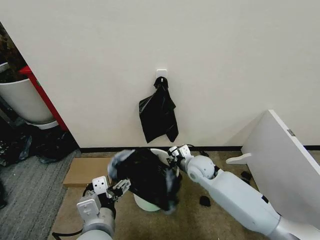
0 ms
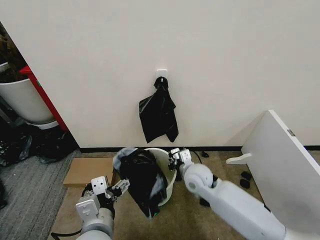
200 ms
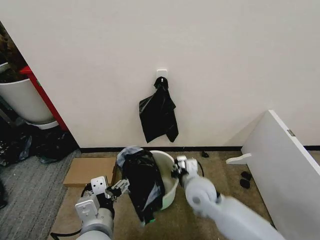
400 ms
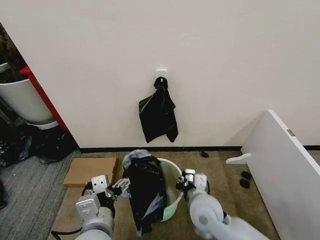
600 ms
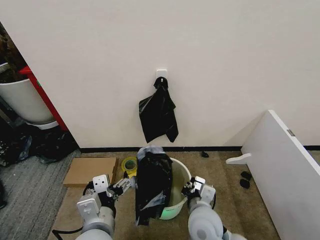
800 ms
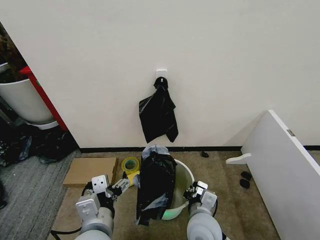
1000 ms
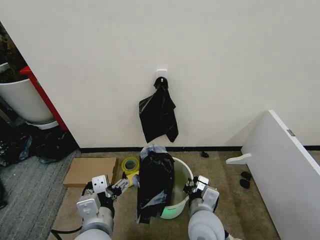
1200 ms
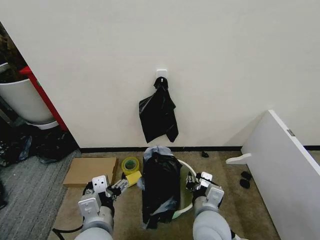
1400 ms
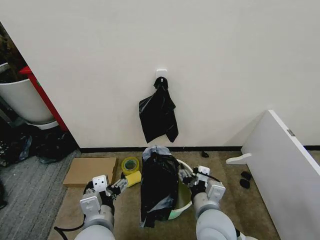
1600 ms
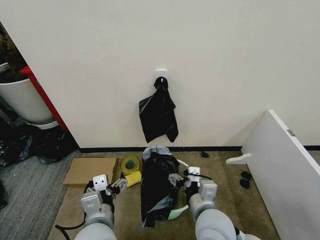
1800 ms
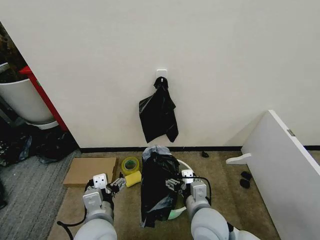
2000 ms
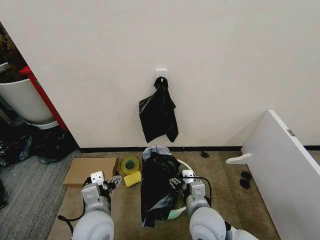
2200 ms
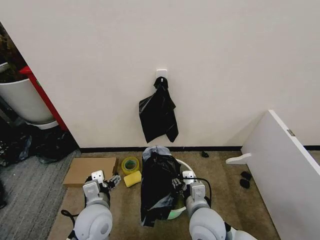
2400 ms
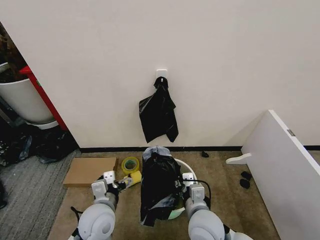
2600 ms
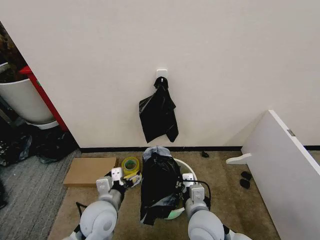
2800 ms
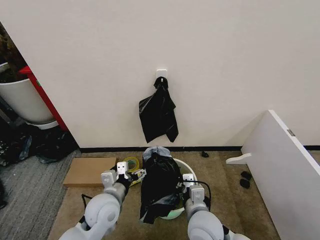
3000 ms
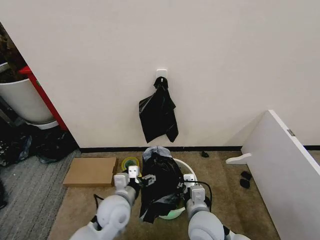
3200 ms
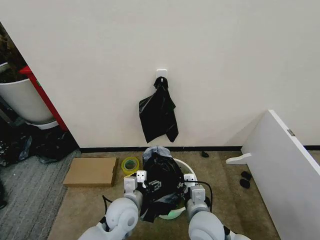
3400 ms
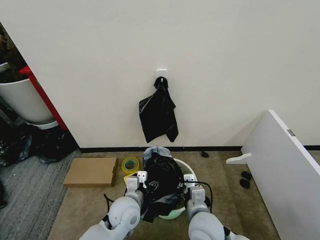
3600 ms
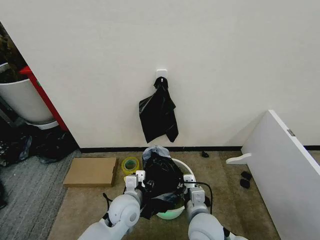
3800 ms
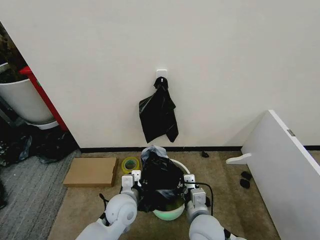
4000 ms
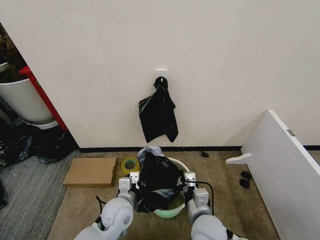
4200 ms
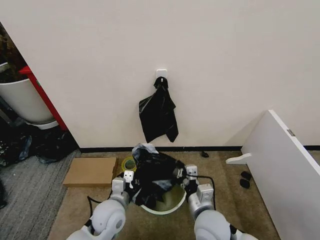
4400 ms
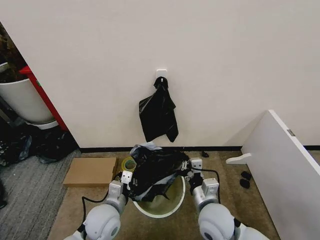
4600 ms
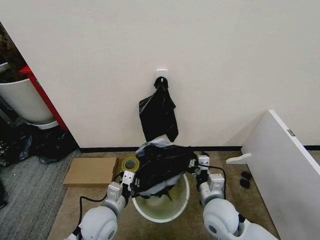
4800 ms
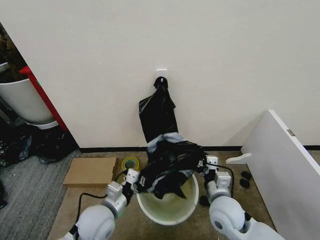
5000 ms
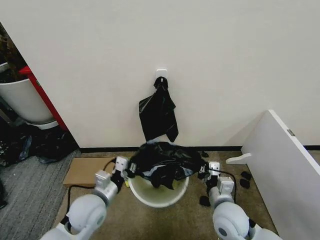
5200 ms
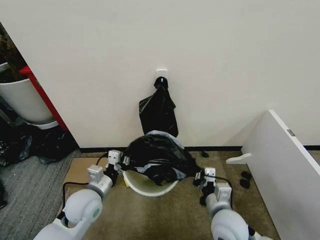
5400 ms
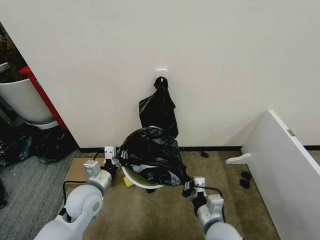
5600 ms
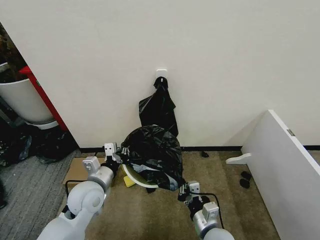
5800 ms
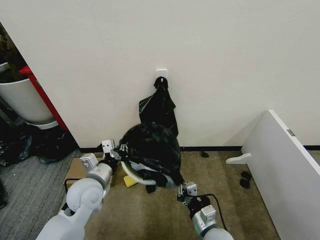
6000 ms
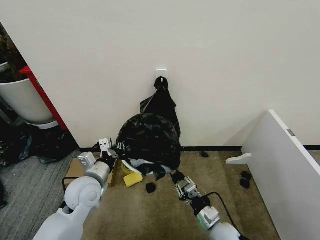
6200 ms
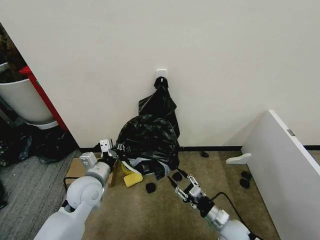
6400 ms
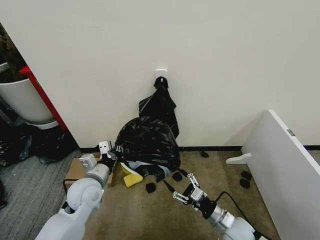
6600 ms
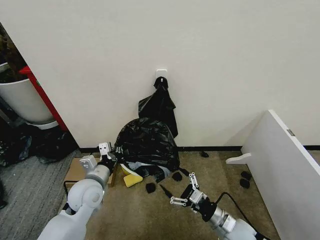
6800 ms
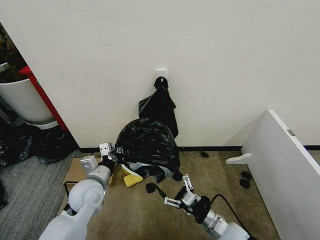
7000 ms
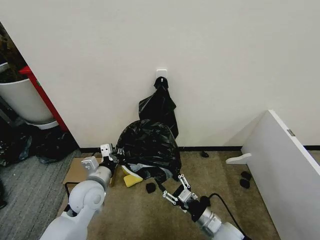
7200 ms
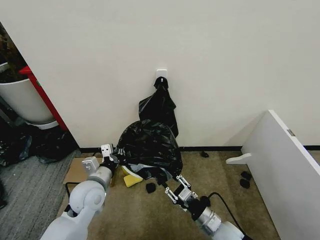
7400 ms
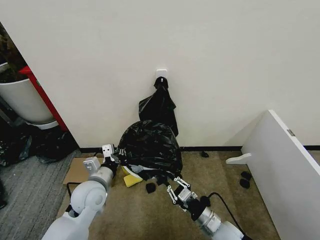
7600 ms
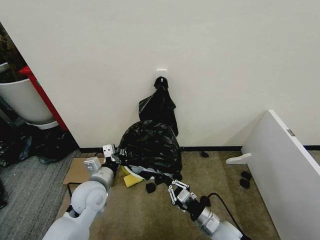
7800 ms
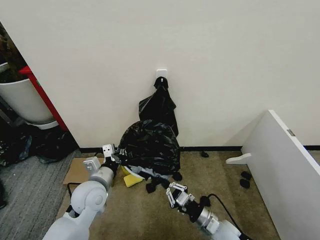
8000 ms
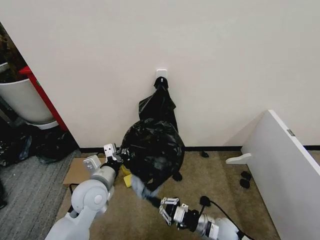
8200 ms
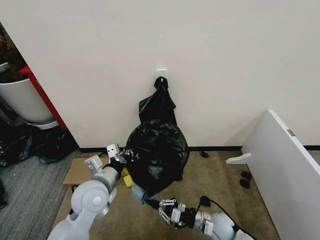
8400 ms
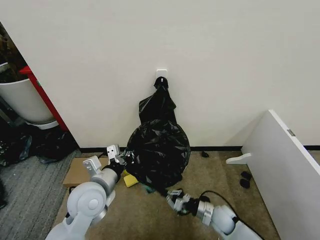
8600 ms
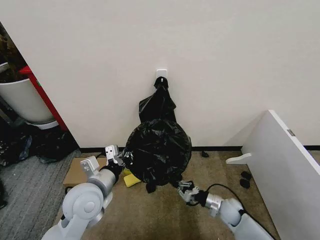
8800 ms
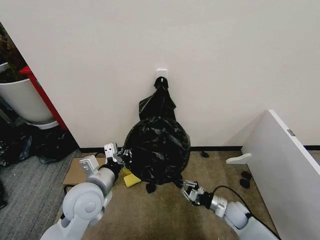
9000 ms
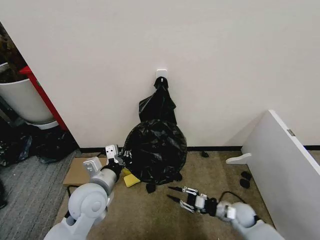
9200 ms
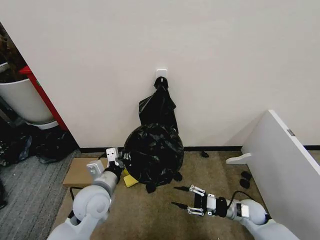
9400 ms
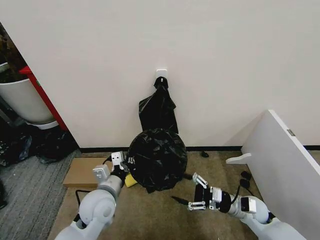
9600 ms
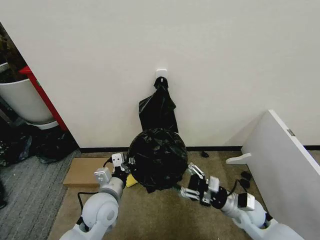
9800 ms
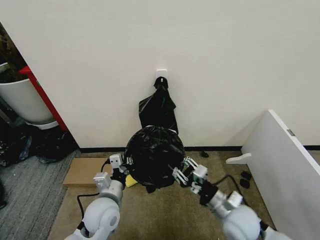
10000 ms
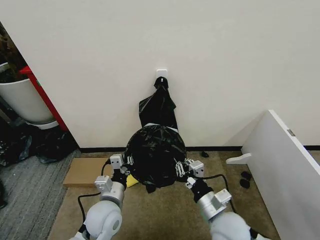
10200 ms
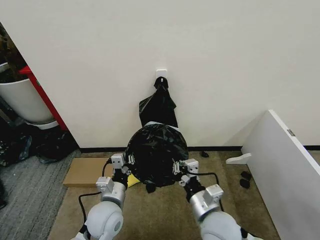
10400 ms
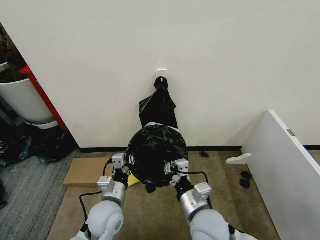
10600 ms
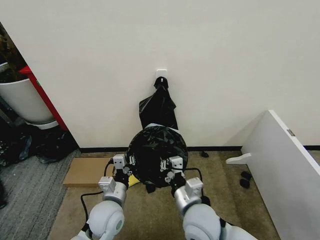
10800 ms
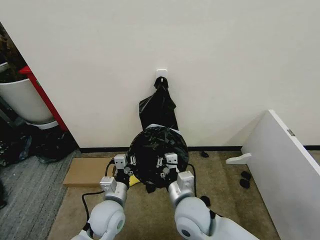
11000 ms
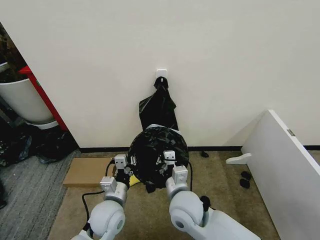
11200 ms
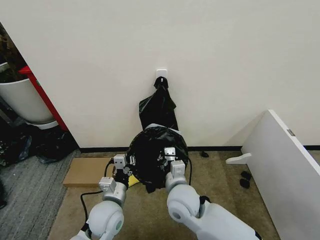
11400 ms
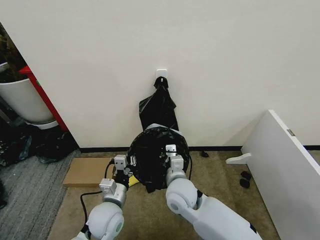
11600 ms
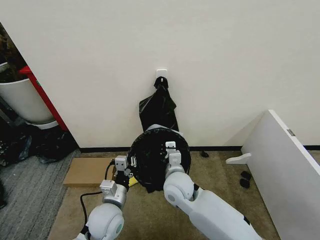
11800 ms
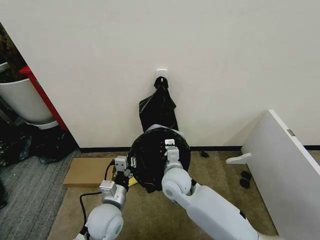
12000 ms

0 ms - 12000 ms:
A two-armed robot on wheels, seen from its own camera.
Task of the whole recording: Place the garbage bag over the trash bin.
0 ms - 1600 ms: The right gripper moves backward, approximately 20 cm, and opens up.
1600 ms - 3000 ms: The right gripper shifts by roughly 5 cm, and closes; the left gripper heads forward and downward, covering about 15 cm.
3000 ms - 4400 ms: The left gripper closes.
4400 ms - 6000 ms: The right gripper shifts roughly 10 cm downward, while the left gripper moves upward and to the left, roughly 10 cm.
6000 ms - 7600 ms: The right gripper opens and closes again.
7600 ms - 9000 ms: The left gripper travels upward by roughly 5 cm. The right gripper is displaced to the right, forward and downward by approximately 15 cm.
9000 ms - 10400 ms: The left gripper heads downward, covering approximately 10 cm. The right gripper goes roughly 30 cm upward, to the left and backward, and opens, then closes once more.
10400 ms - 12000 ms: The right gripper goes about 15 cm forward and to the left.

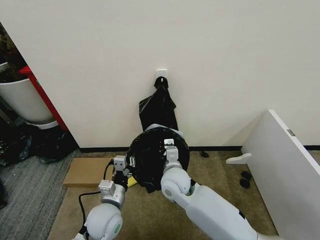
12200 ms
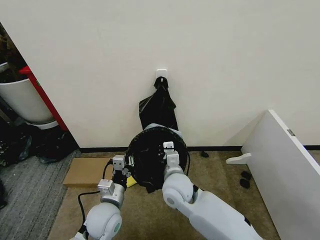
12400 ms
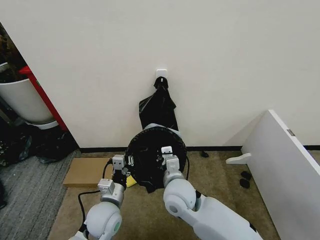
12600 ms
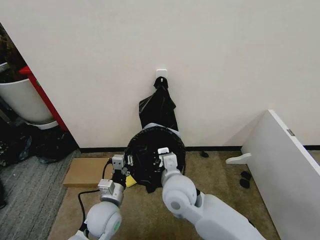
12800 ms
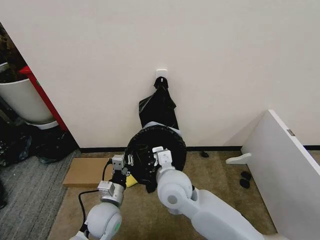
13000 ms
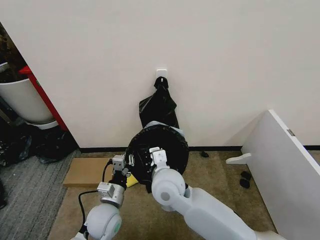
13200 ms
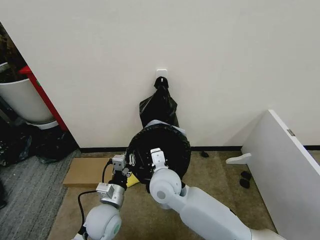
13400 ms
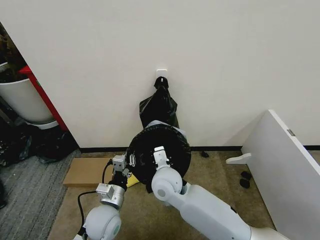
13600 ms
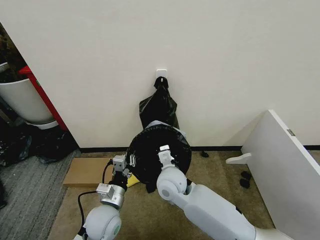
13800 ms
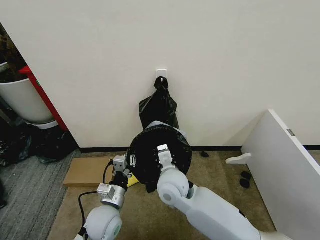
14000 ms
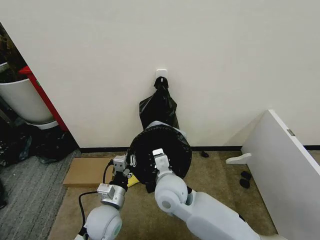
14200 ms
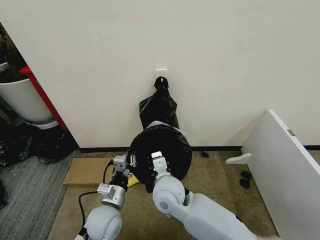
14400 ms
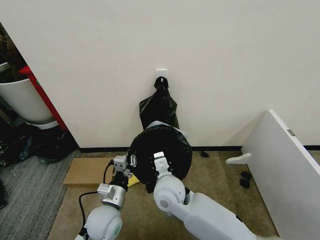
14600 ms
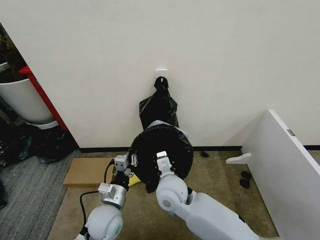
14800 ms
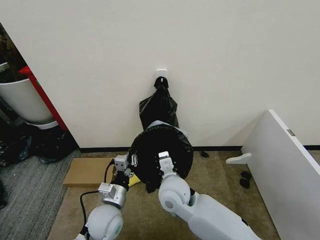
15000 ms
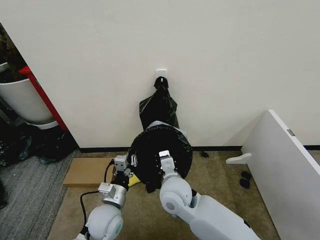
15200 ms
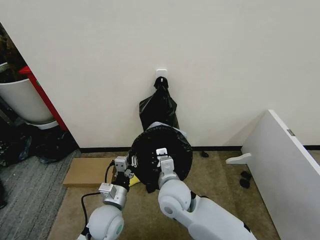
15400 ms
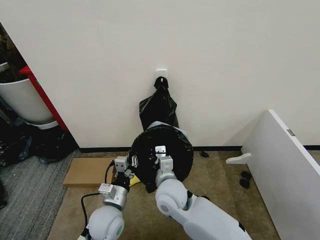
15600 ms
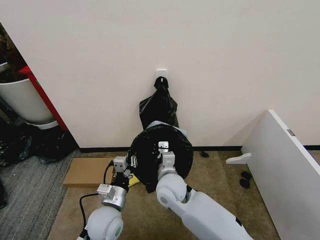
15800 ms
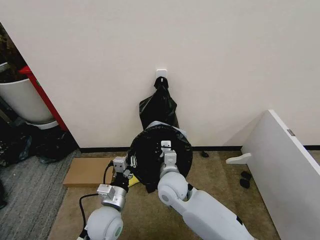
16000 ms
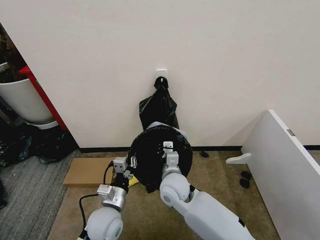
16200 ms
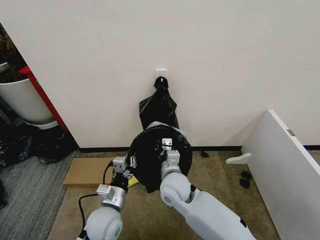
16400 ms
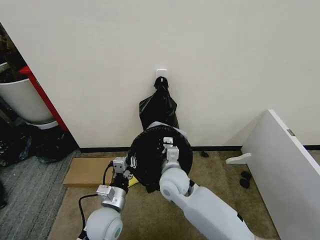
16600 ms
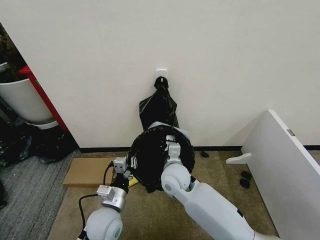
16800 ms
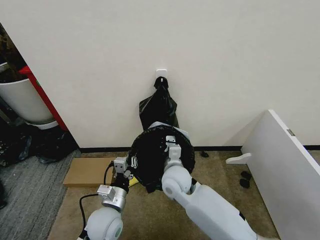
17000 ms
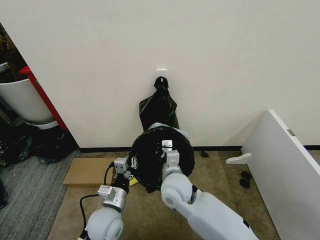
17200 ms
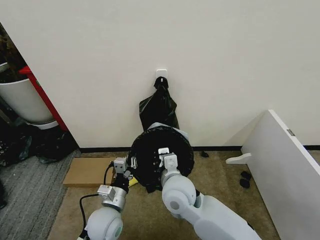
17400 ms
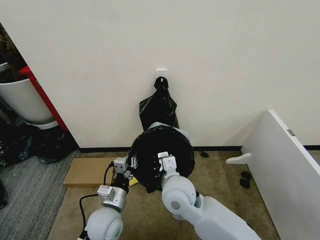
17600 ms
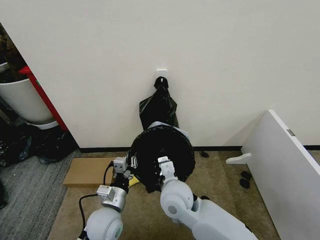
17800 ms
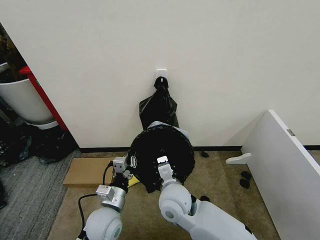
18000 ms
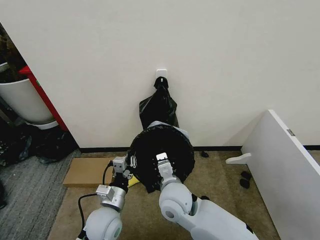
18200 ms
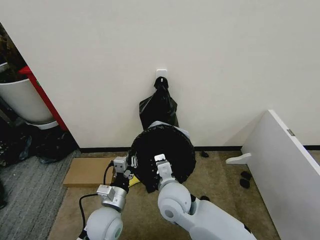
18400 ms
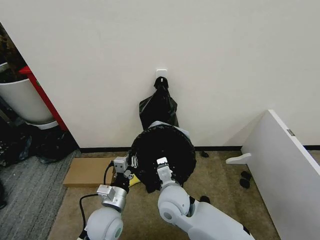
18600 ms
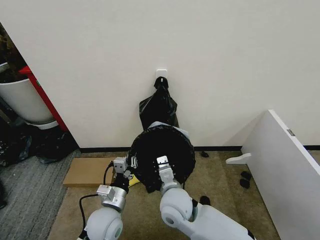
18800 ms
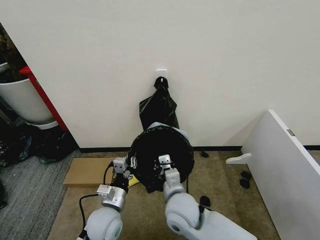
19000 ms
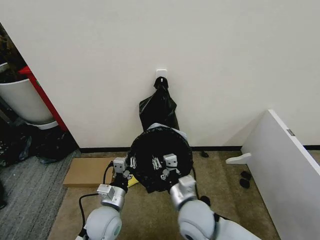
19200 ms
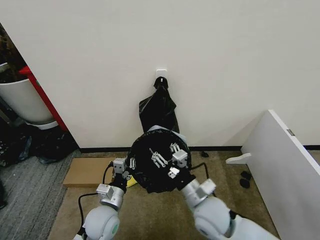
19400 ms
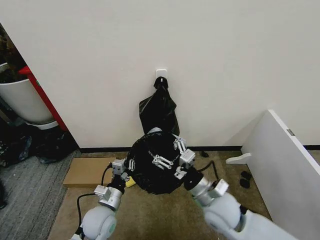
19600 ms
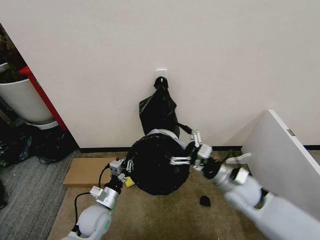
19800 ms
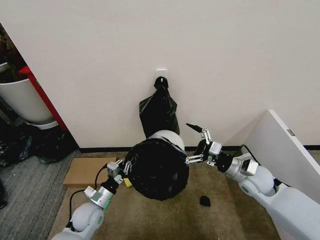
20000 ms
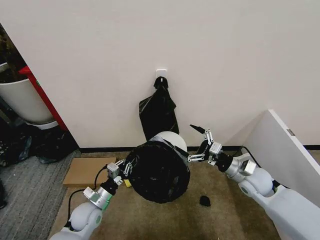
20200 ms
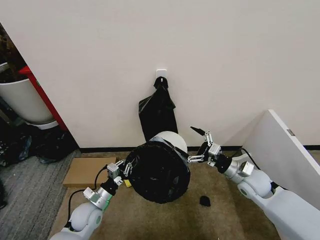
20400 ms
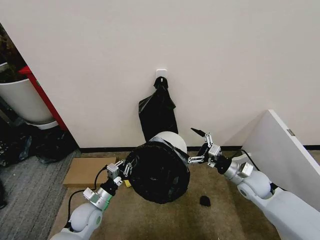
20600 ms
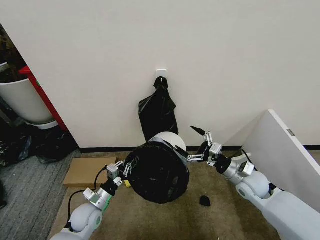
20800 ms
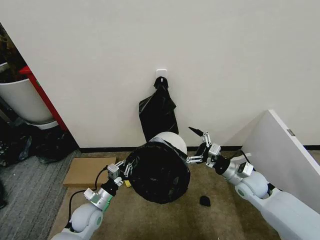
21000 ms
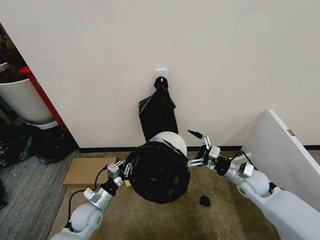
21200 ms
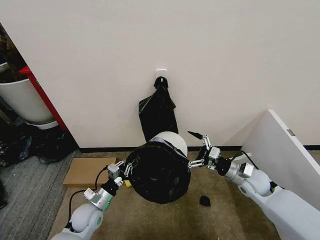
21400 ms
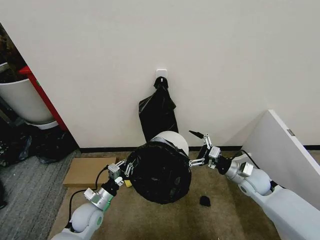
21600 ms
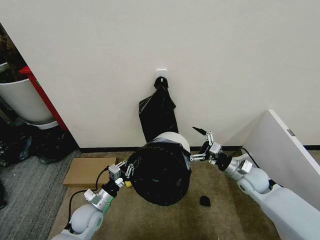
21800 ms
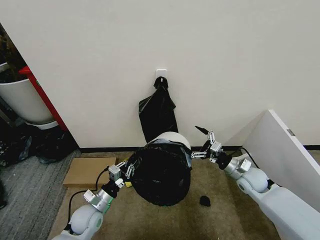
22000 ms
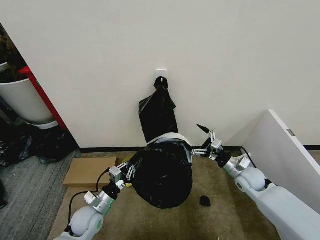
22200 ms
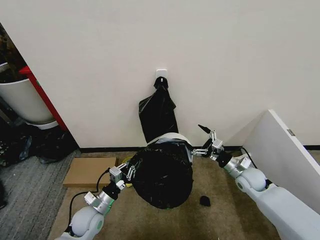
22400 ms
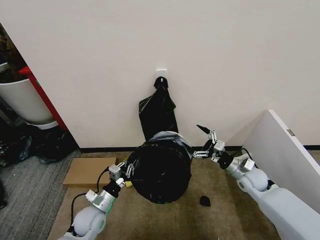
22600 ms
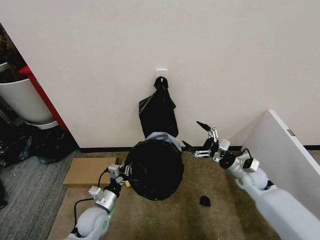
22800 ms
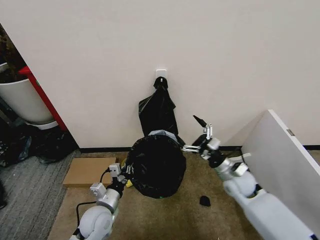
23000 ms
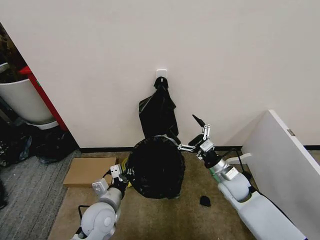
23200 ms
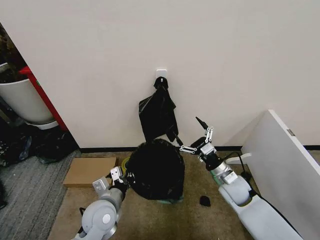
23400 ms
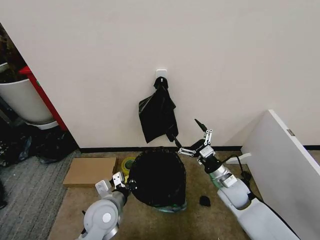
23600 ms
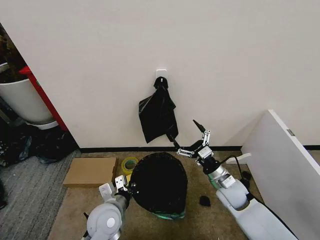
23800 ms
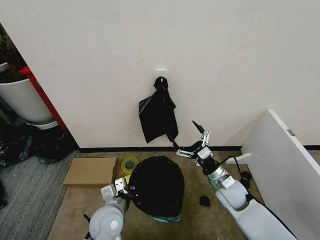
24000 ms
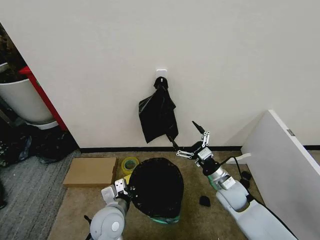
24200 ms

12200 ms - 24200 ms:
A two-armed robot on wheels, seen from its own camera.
Task of the whole recording: Place the garbage bag over the trash bin.
13800 ms - 15200 ms: There are only small adjustments of the grippers.
16600 ms - 18200 ms: The right gripper moves backward, roughly 5 cm.
18200 ms - 19800 ms: The left gripper is displaced downward and to the left by approximately 10 cm. Meanwhile the right gripper moves to the right, about 20 cm, and opens.
19800 ms - 21200 ms: The right gripper moves to the right and forward, about 10 cm. Meanwhile the left gripper shifts by about 5 cm.
21200 ms - 22600 ms: The grippers stay close to where they were, moving slightly.
22600 ms - 24200 ms: The right gripper moves to the left and backward, about 10 cm. The left gripper travels to the right and upward by roughly 10 cm.
